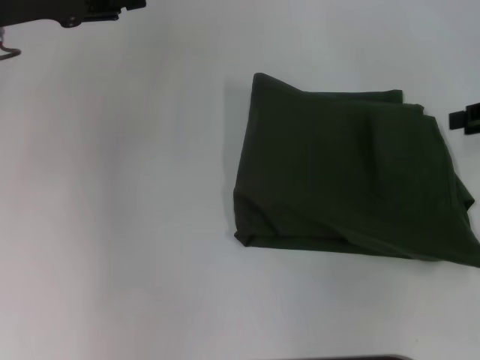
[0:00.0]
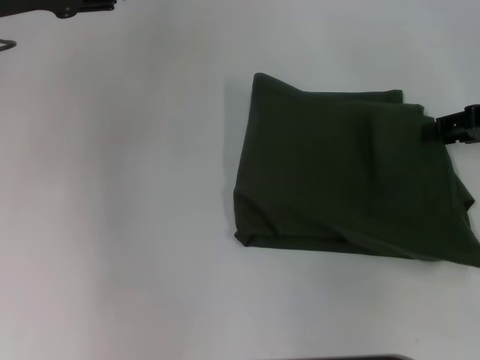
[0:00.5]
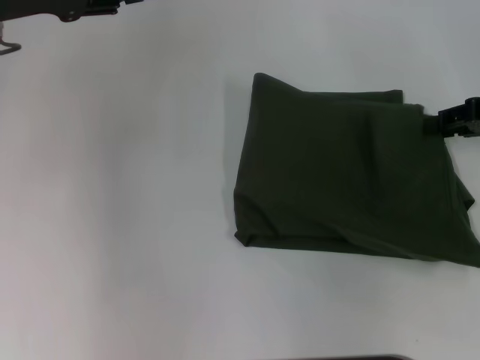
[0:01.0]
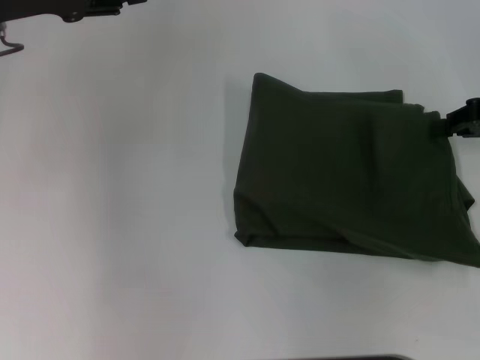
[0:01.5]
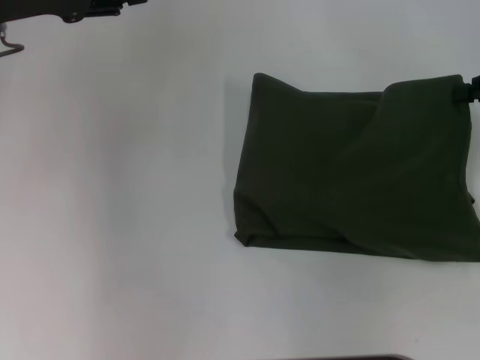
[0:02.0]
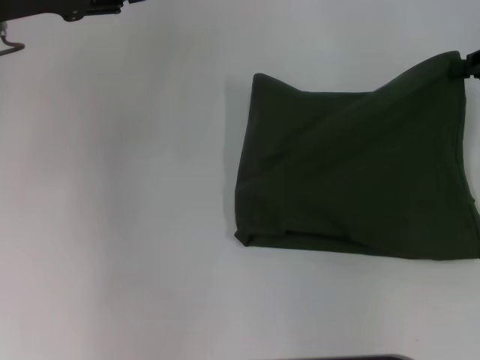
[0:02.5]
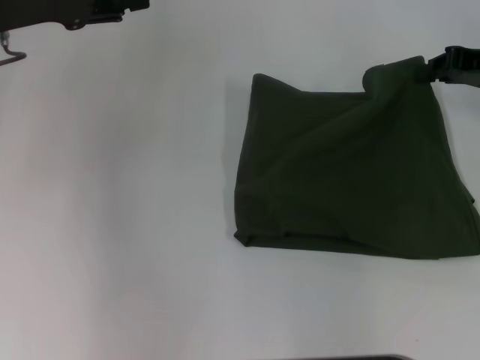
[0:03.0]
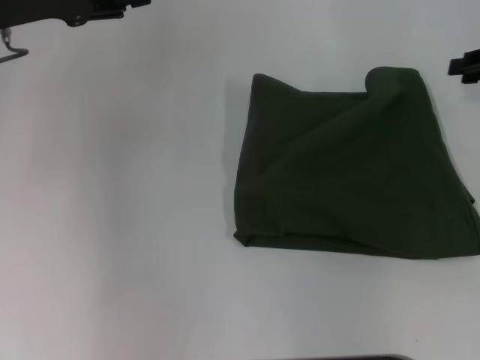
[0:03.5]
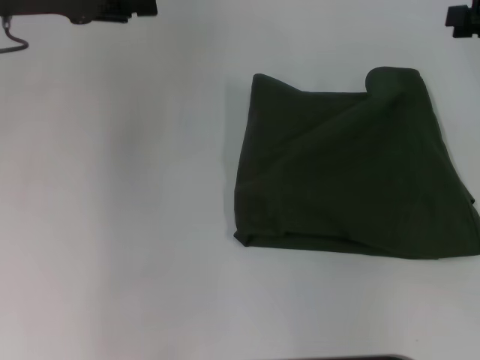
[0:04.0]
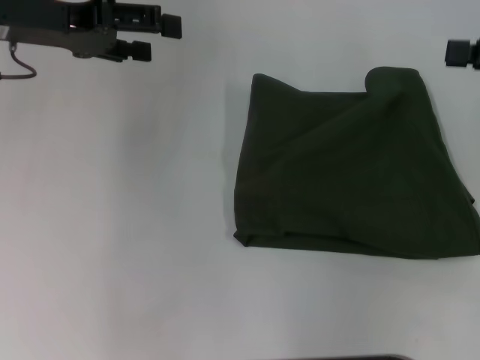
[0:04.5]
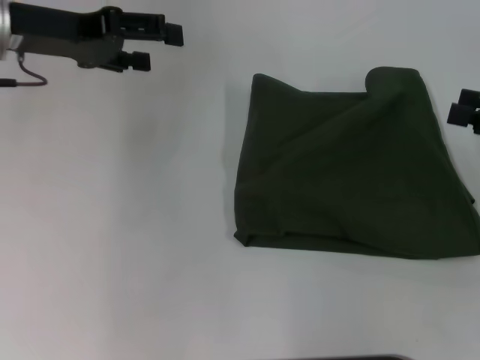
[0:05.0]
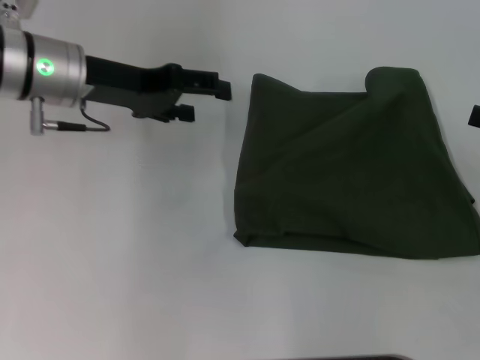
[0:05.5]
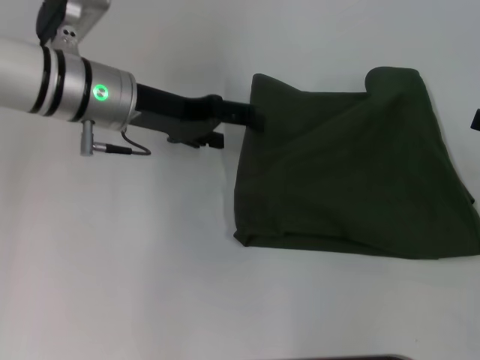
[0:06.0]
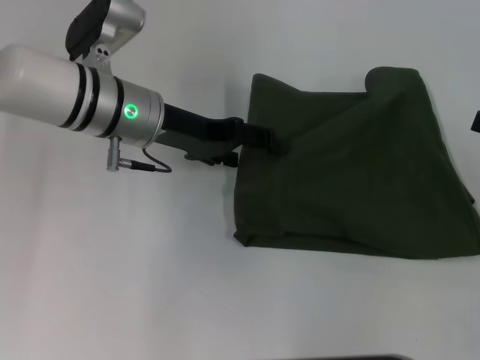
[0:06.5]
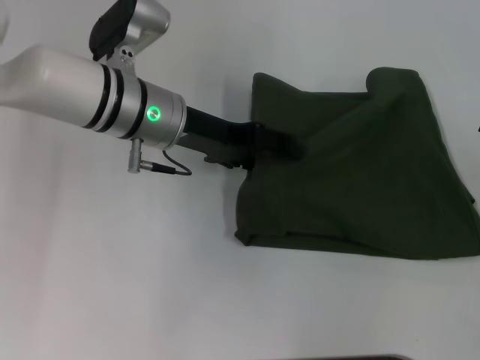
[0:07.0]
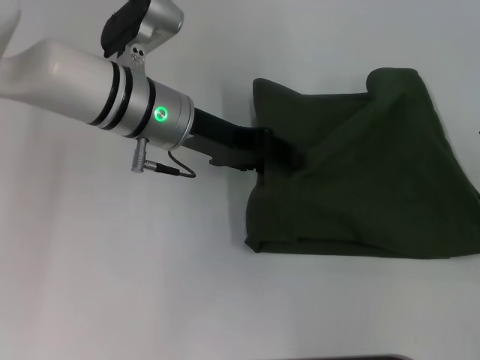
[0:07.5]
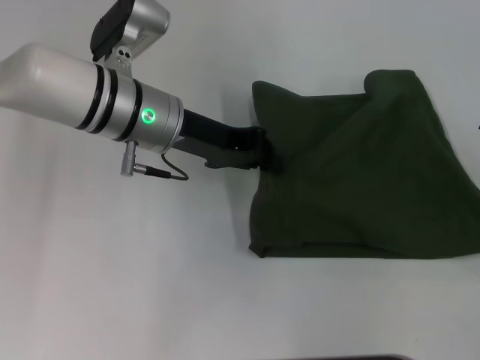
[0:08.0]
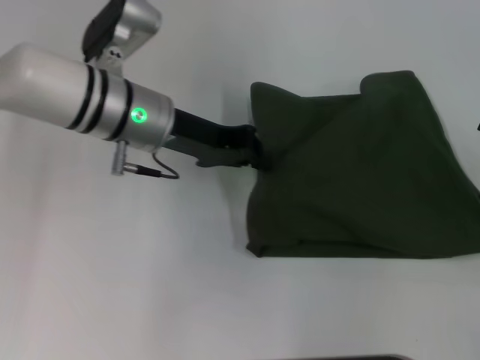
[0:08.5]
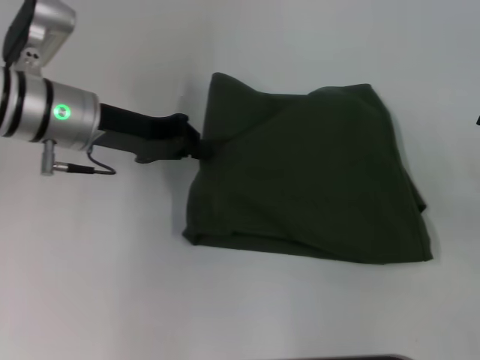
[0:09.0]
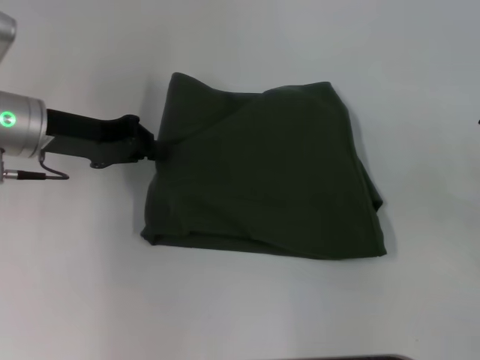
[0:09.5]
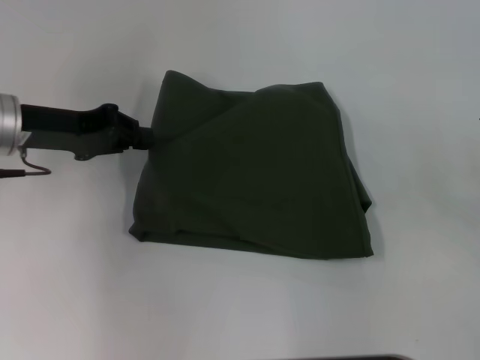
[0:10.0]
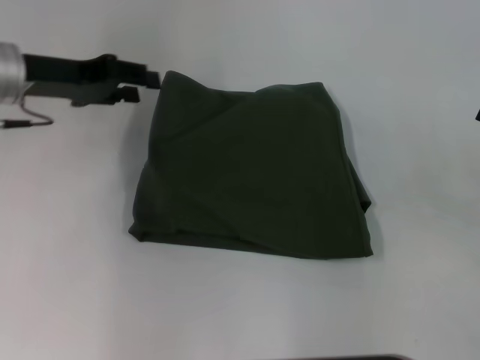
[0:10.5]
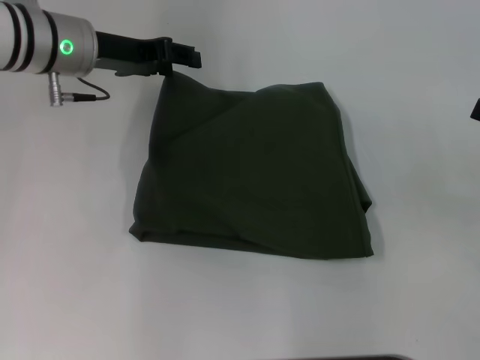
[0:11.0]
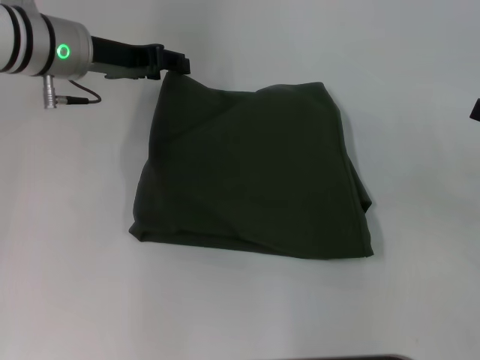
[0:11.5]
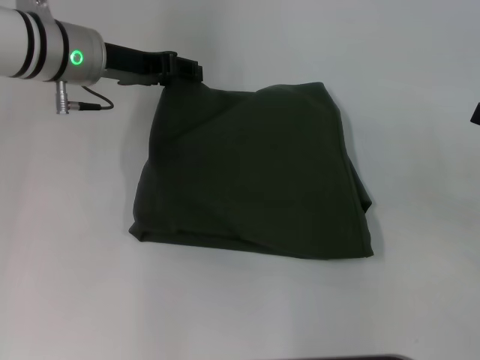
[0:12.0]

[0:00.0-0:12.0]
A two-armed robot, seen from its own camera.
0:00.0 to 0:02.0: The right gripper closes its fingers.
0:02.0 to 0:04.0: The right gripper shifts by roughly 5 cm, and opens up.
0:04.0 to 0:06.0: The left gripper is displaced to the right and downward by roughly 15 cm, while the right gripper moves backward and downward, approximately 15 cm, and opens its fingers.
0:06.0 to 0:08.0: The left gripper closes its fingers.
0:08.0 to 0:10.0: The left gripper is displaced to the left by approximately 15 cm.
0:10.0 to 0:12.0: The left gripper is displaced to the right and forward by approximately 10 cm, and opens up.

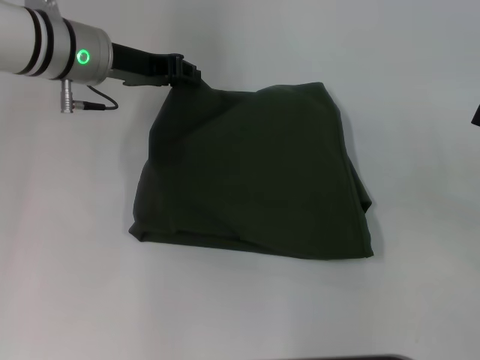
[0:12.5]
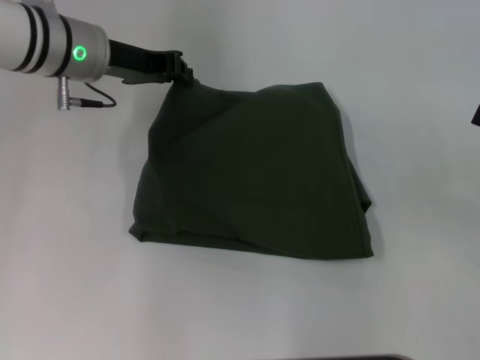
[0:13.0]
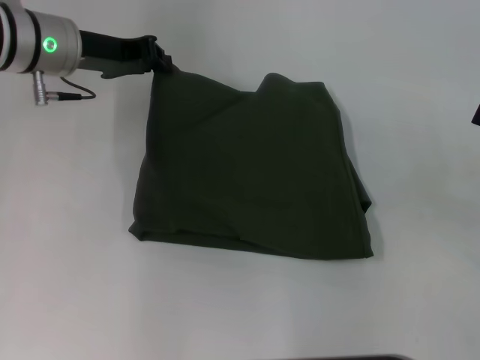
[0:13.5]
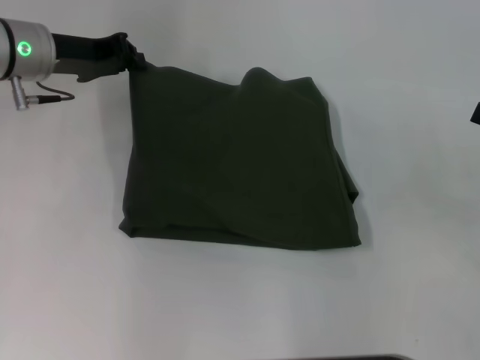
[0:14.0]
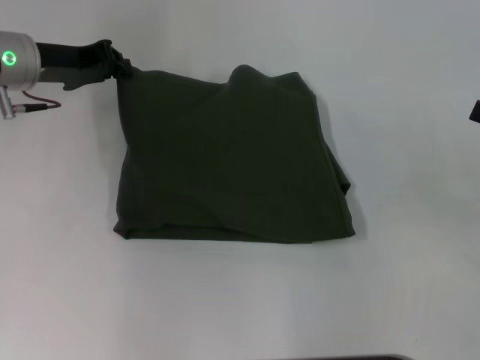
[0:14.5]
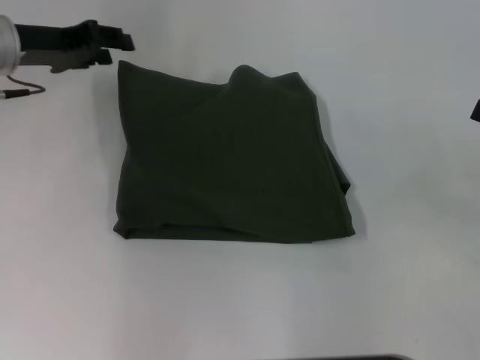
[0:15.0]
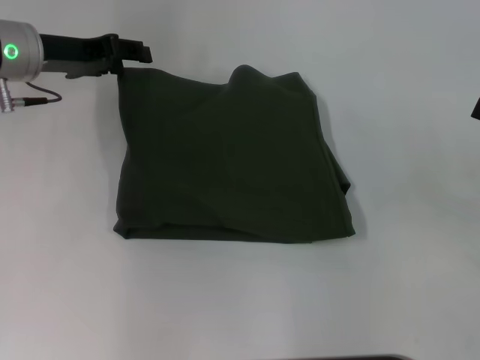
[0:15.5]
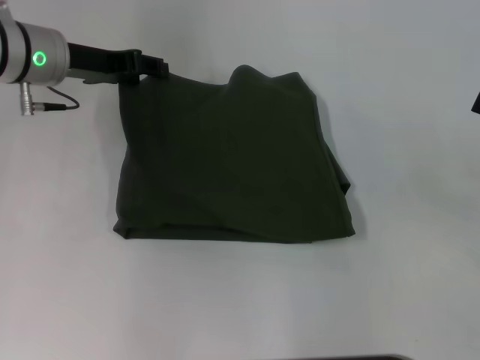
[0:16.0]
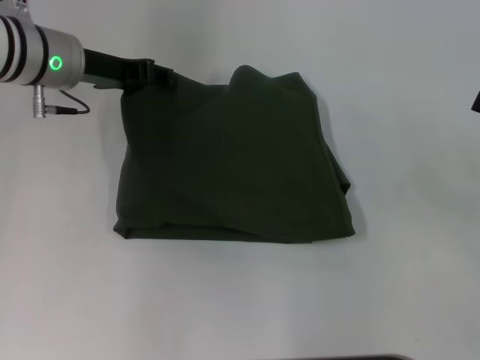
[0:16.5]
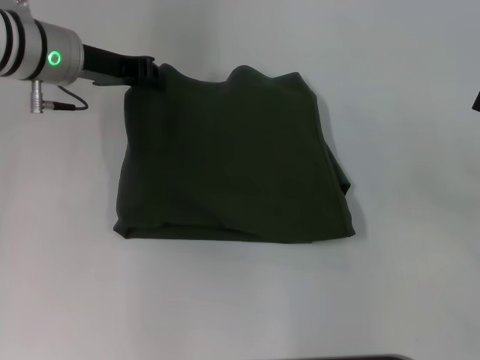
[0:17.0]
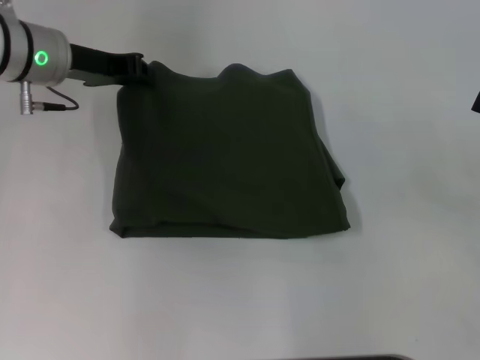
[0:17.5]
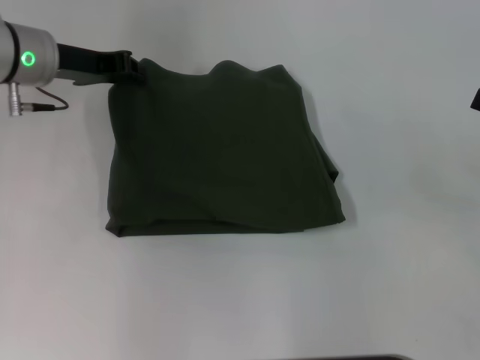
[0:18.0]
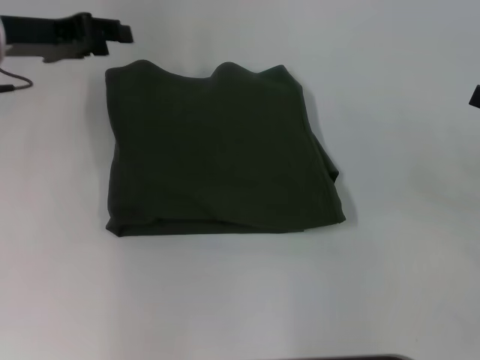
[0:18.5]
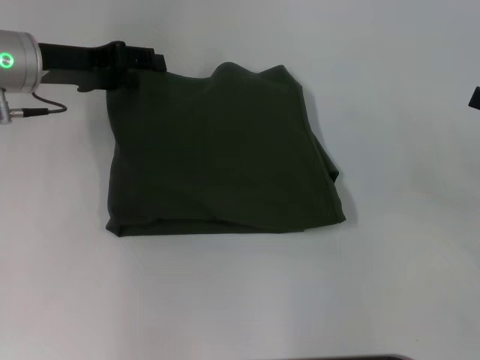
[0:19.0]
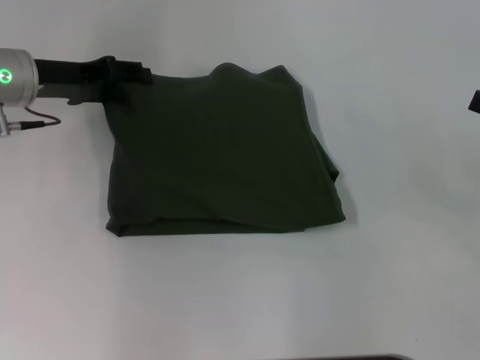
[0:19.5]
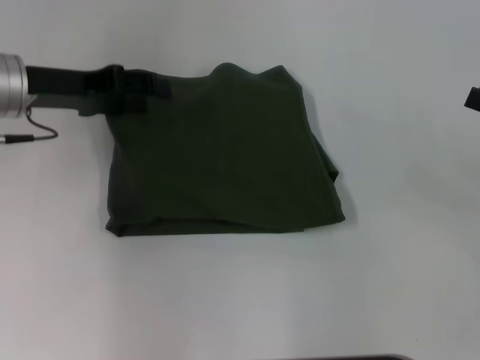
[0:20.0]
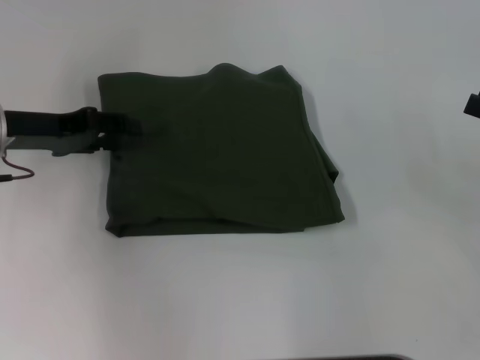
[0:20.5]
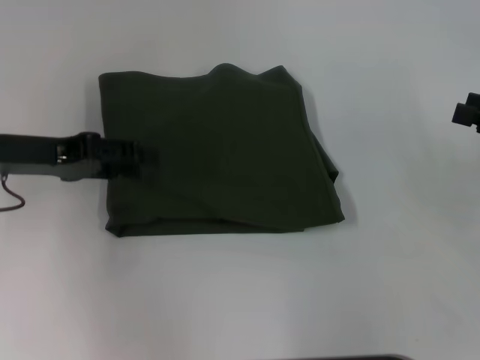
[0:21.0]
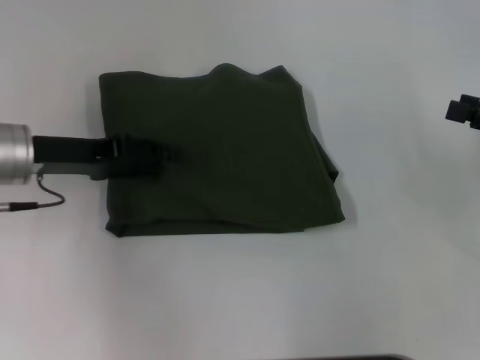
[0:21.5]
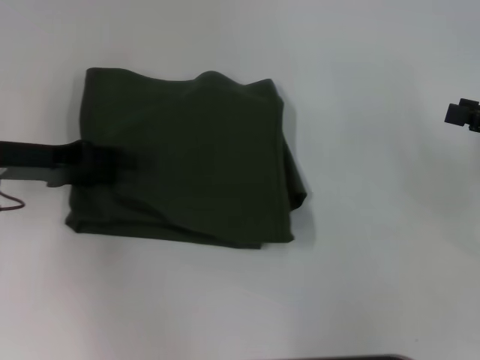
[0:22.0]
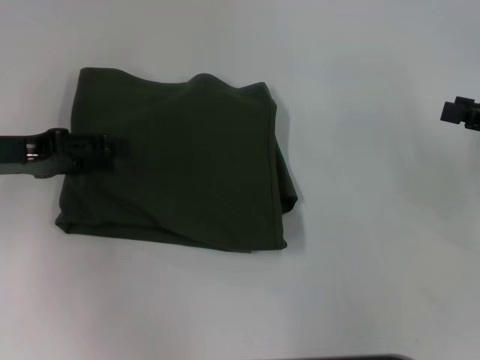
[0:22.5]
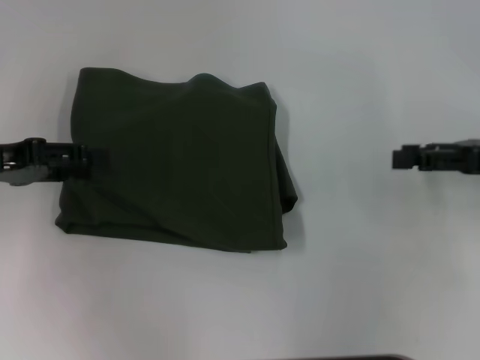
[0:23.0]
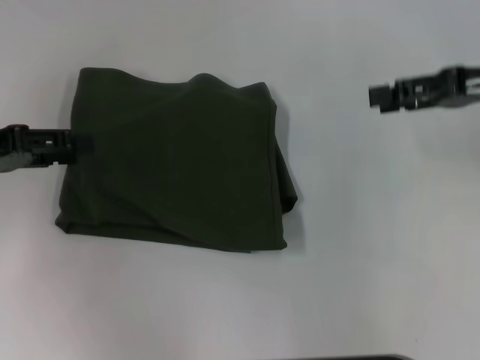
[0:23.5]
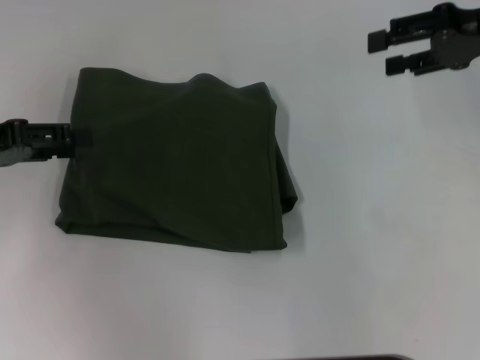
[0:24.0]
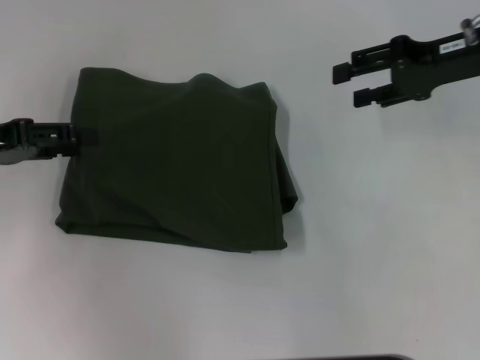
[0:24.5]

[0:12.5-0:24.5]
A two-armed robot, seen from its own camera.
0:12.5 to 0:14.5: The left gripper shifts roughly 5 cm to the left, and closes its fingers.
0:14.5 to 0:16.5: The left gripper opens up.
0:16.5 to 0:18.5: The left gripper shifts approximately 5 cm to the left.
0:18.5 to 0:20.5: The left gripper is displaced backward and downward by roughly 10 cm.
0:20.5 to 0:22.5: The left gripper ends up roughly 5 cm from where it was.
0:22.5 to 0:24.5: The right gripper moves forward and to the left, about 15 cm.

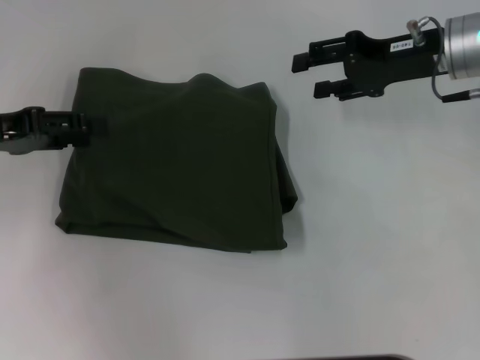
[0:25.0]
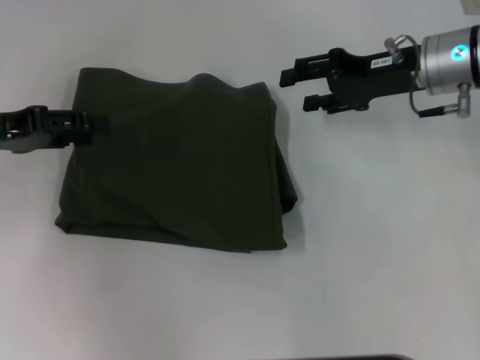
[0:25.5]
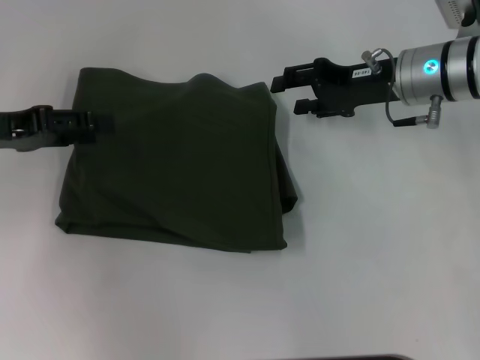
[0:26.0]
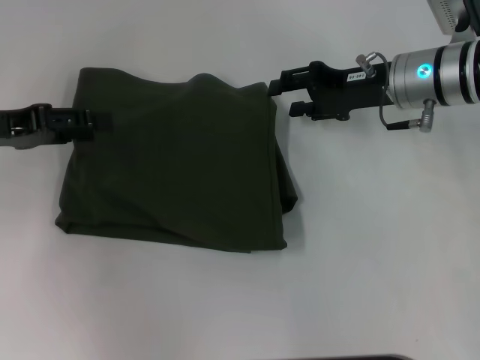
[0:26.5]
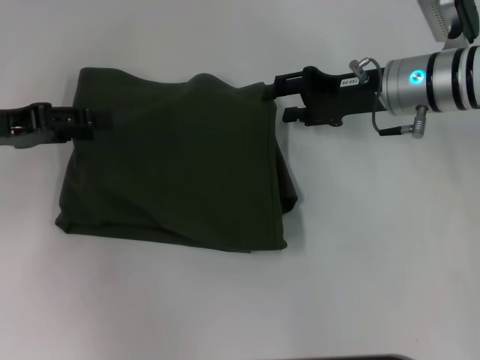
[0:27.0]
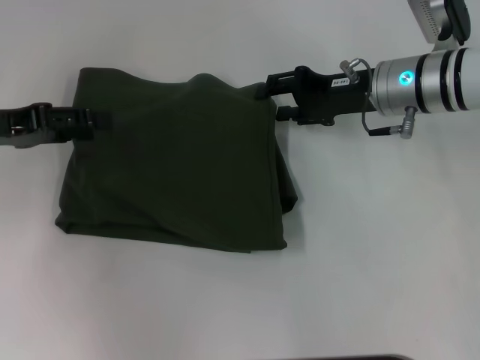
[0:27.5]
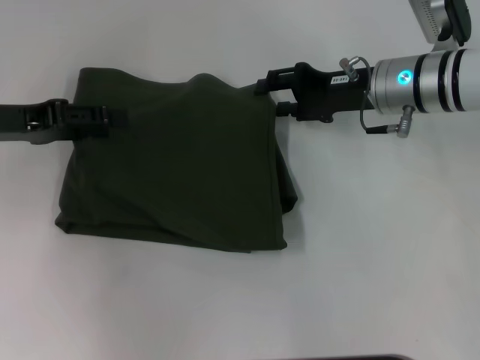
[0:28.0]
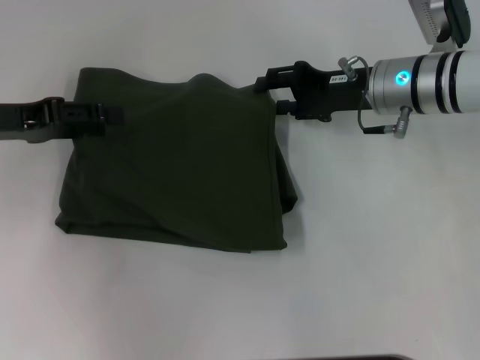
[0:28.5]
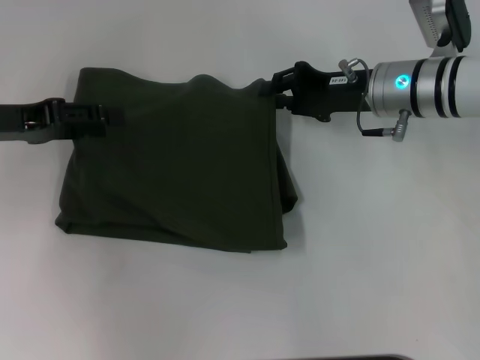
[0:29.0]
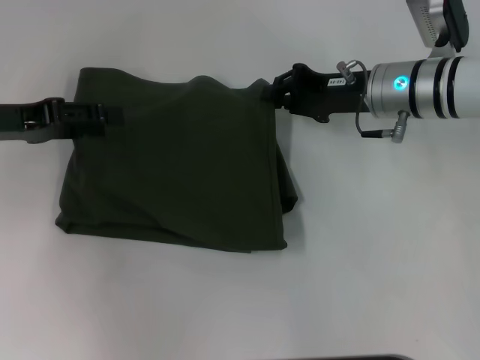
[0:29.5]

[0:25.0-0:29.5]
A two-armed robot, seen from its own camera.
0:25.0 to 0:27.0: The right gripper moves some 5 cm.
0:27.0 to 0:29.5: The right gripper closes.
